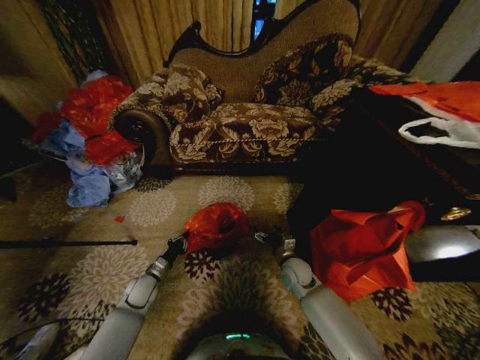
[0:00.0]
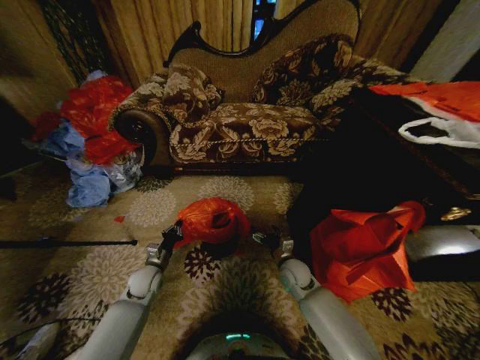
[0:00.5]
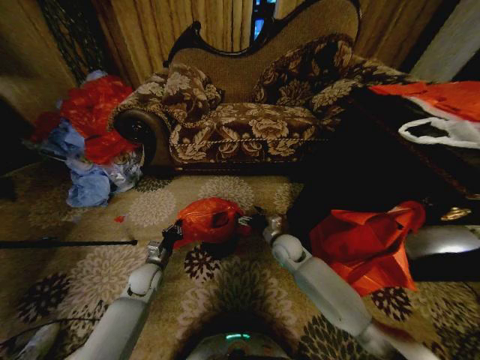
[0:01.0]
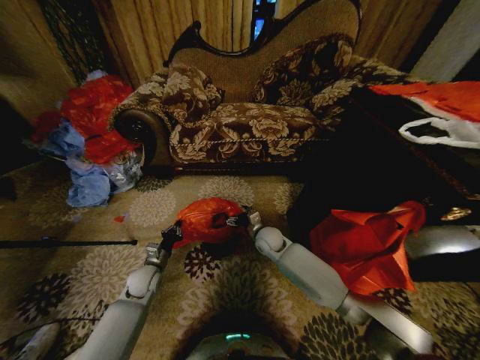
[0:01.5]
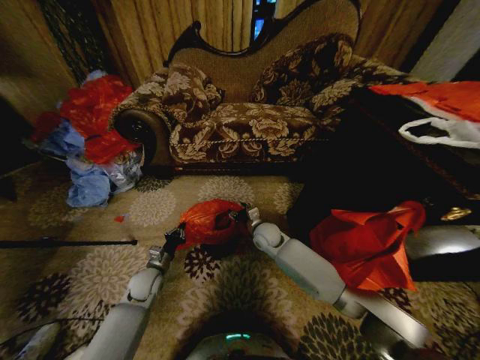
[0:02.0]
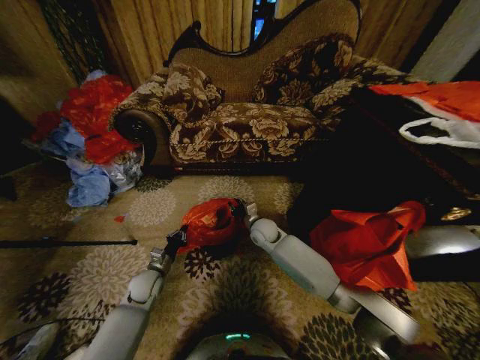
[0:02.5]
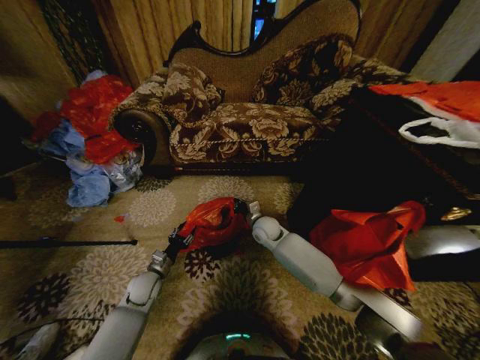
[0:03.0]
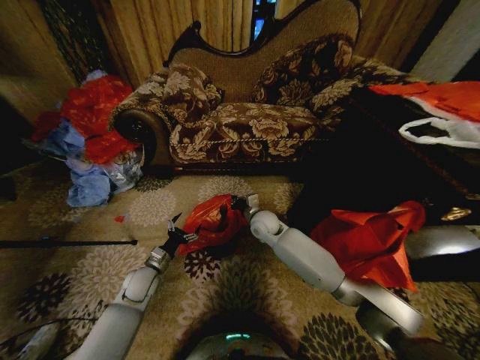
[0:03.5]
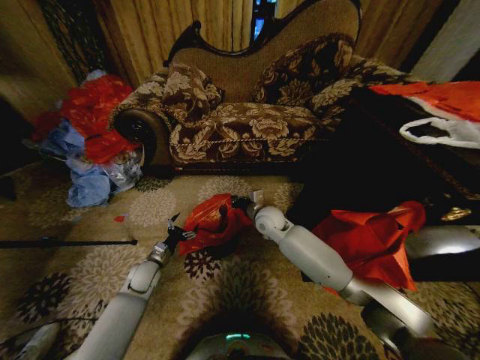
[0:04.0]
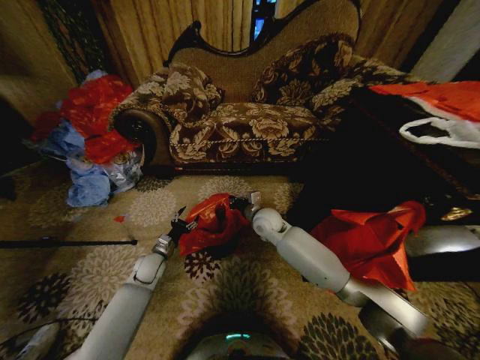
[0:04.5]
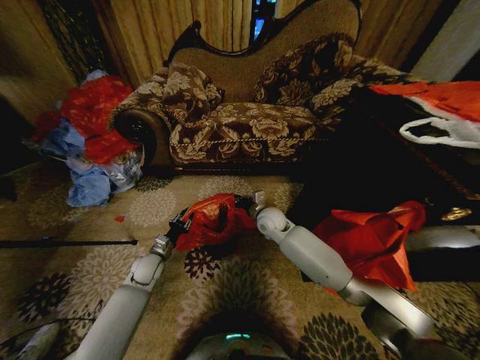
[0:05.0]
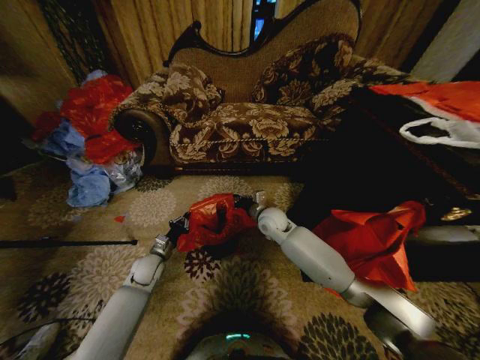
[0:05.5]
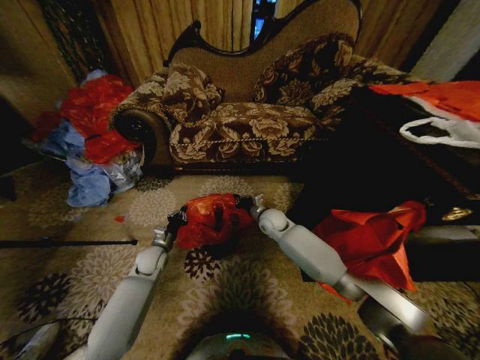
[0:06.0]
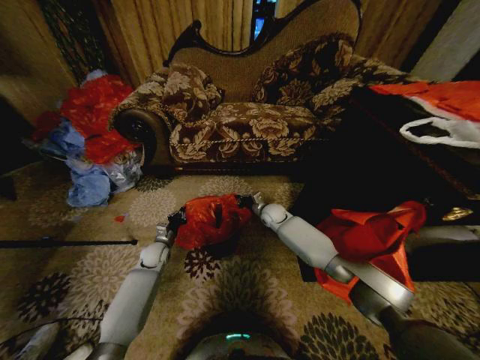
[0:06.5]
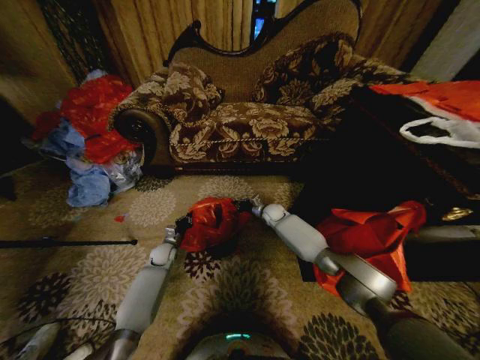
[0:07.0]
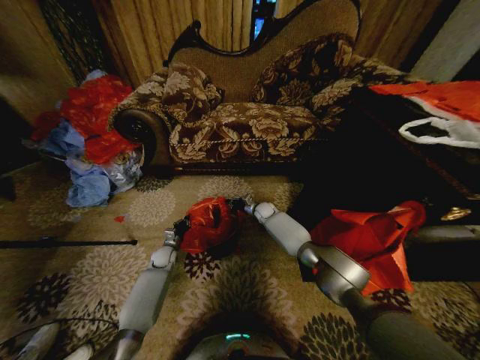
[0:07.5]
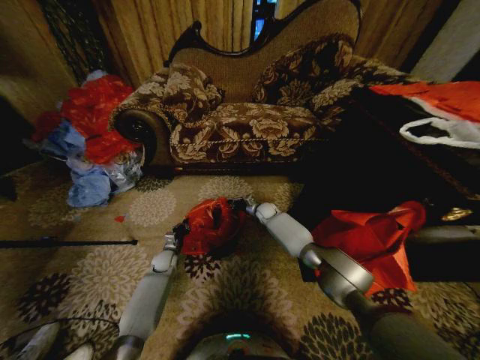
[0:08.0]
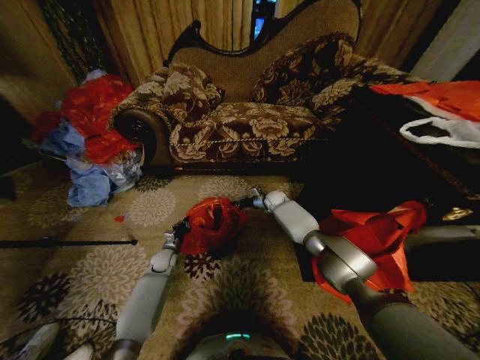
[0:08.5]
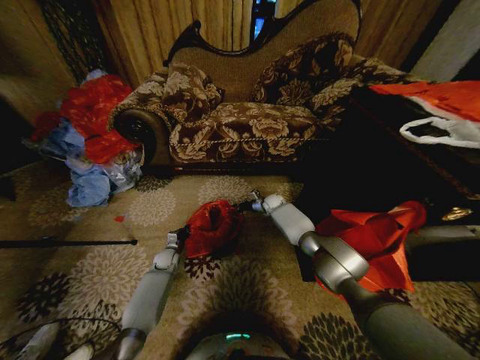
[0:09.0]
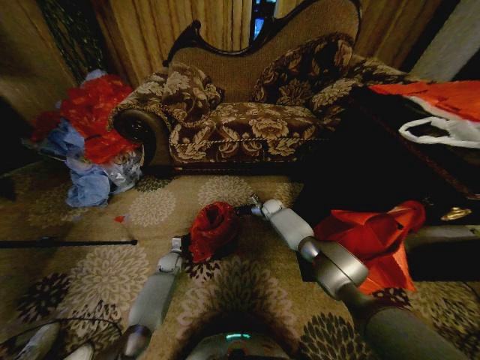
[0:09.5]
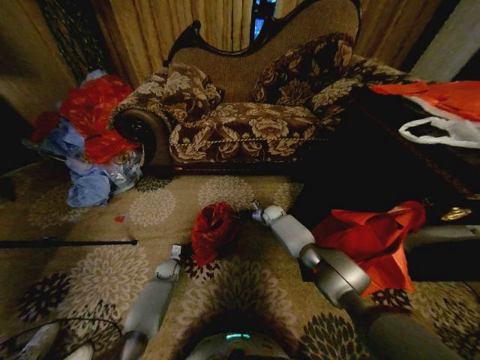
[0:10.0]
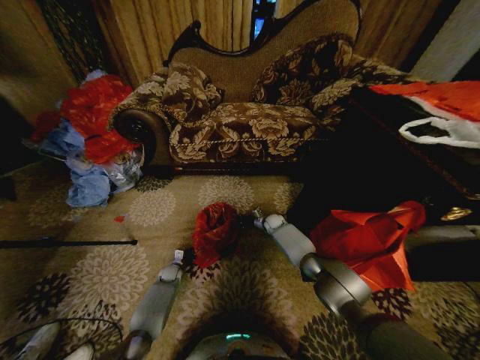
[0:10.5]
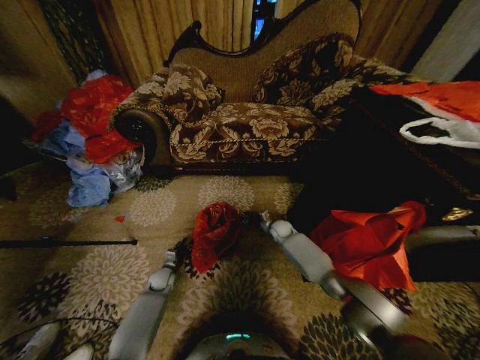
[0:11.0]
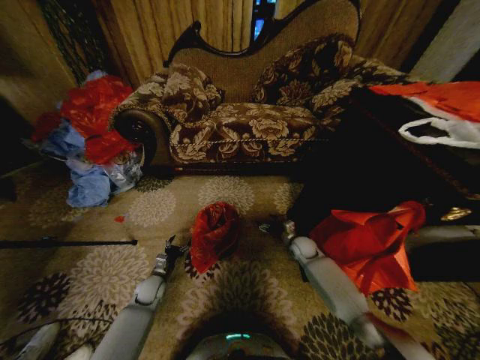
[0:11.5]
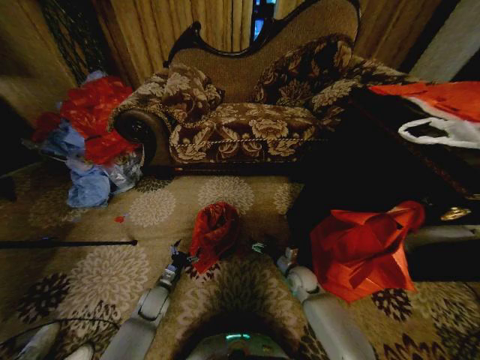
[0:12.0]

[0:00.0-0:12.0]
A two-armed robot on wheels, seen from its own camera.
Task of the whole recording: Place a garbage bag over the trash bin.
0:00.0 to 0:02.0: The right gripper moves to the left, forward and upward, about 15 cm.
0:02.0 to 0:04.0: The left gripper opens up, while the right gripper goes about 10 cm upward, and closes.
0:04.0 to 0:06.0: The right gripper ends up some 5 cm from where it was. Meanwhile the left gripper closes its fingers.
0:06.0 to 0:08.0: The left gripper heads downward, covering roughly 10 cm. The right gripper is displaced forward and downward by roughly 15 cm.
0:08.0 to 0:10.0: The left gripper shifts about 5 cm downward.
0:10.0 to 0:12.0: The right gripper travels backward by approximately 25 cm, and opens its fingers, while the left gripper goes approximately 15 cm backward and upward, and opens up.

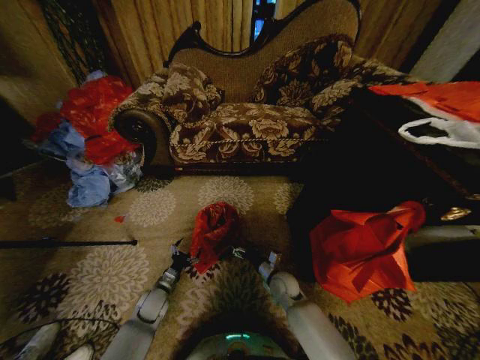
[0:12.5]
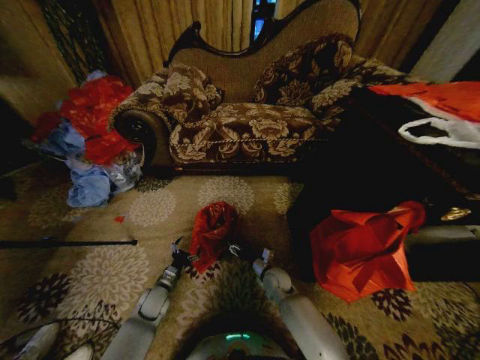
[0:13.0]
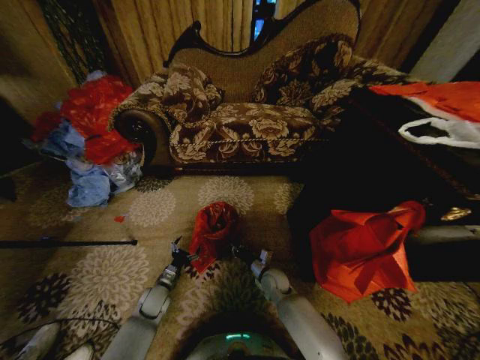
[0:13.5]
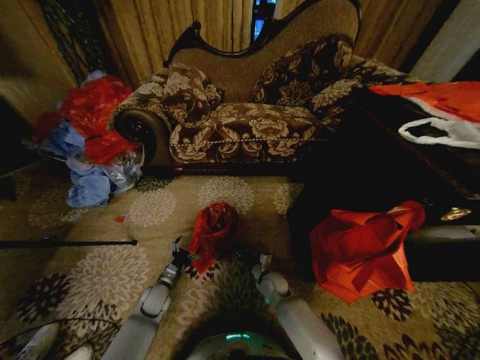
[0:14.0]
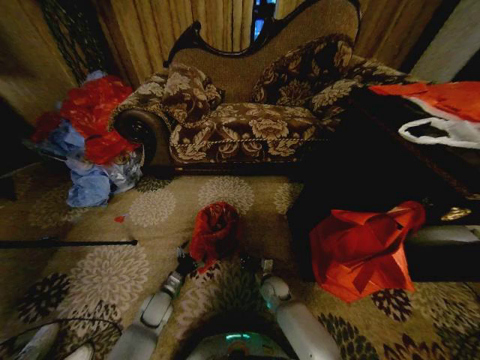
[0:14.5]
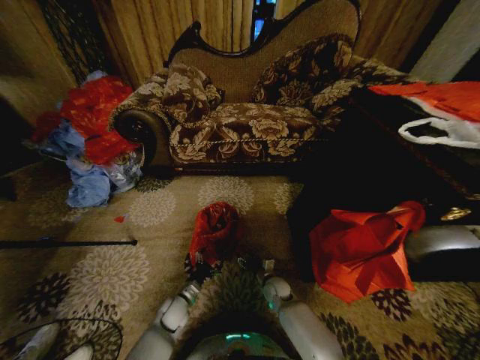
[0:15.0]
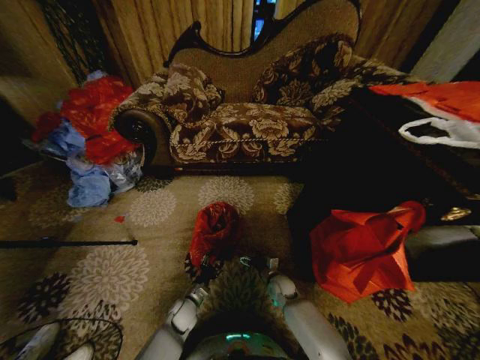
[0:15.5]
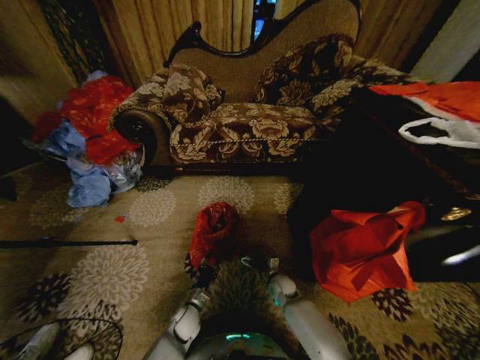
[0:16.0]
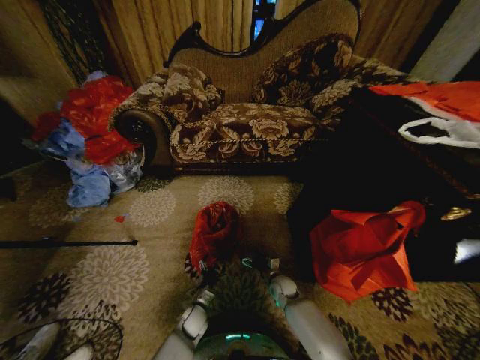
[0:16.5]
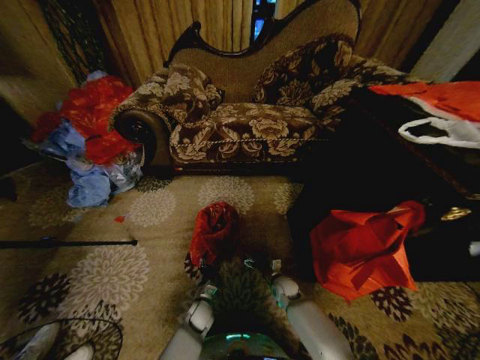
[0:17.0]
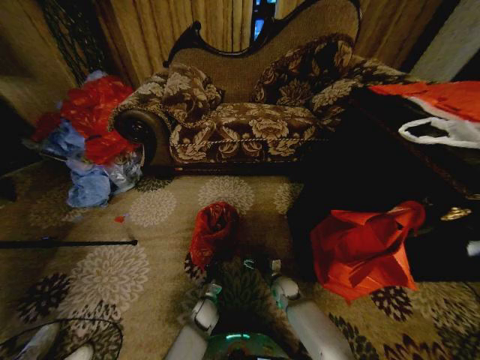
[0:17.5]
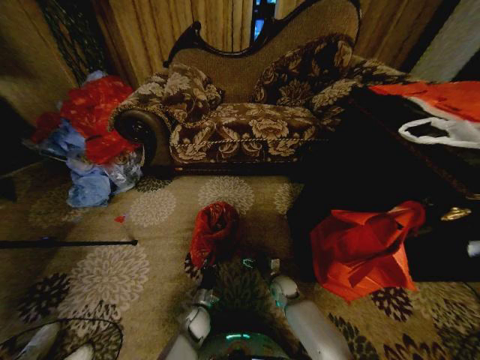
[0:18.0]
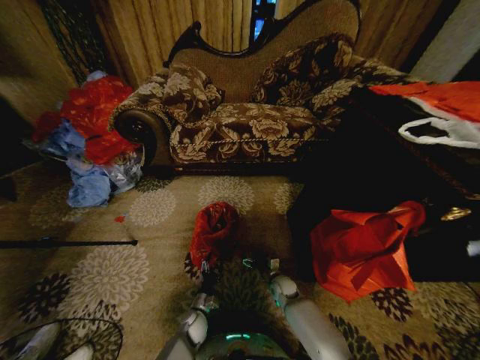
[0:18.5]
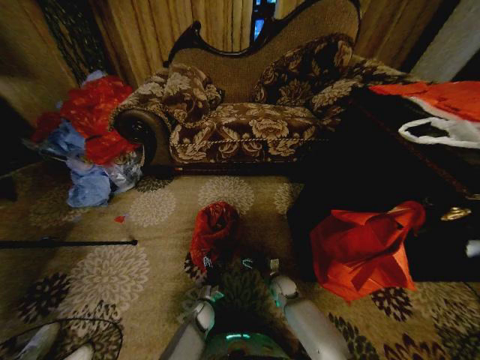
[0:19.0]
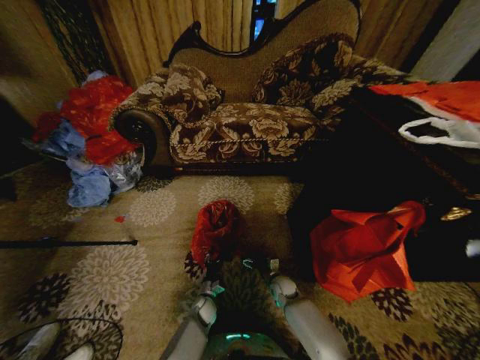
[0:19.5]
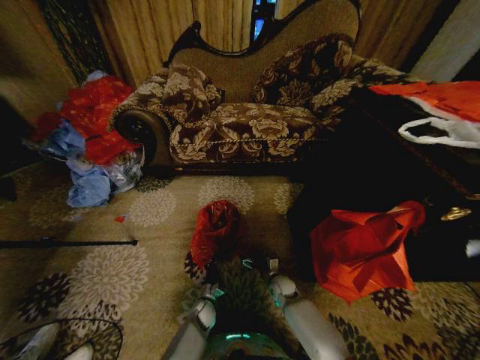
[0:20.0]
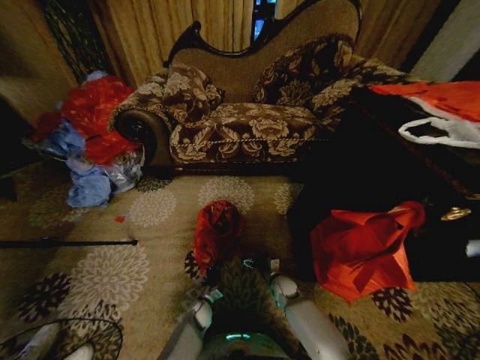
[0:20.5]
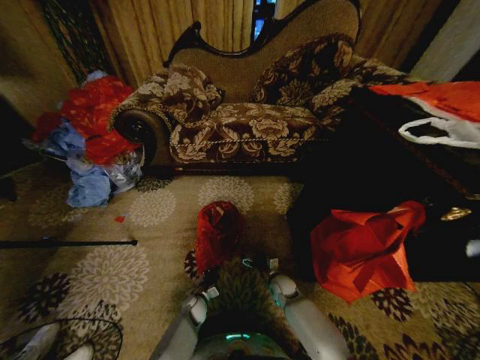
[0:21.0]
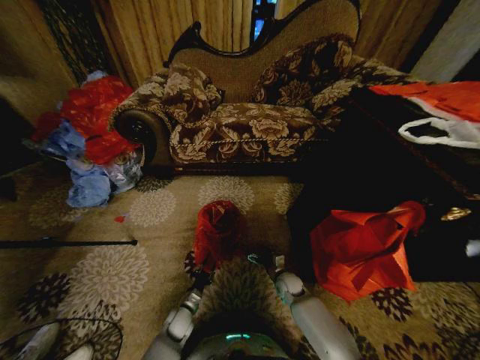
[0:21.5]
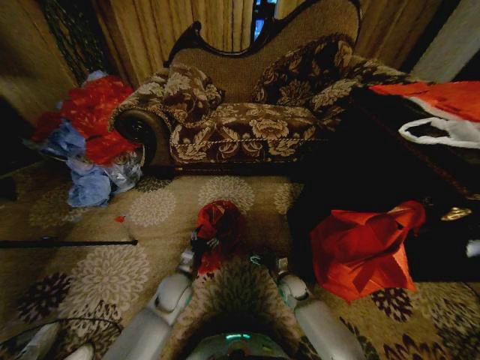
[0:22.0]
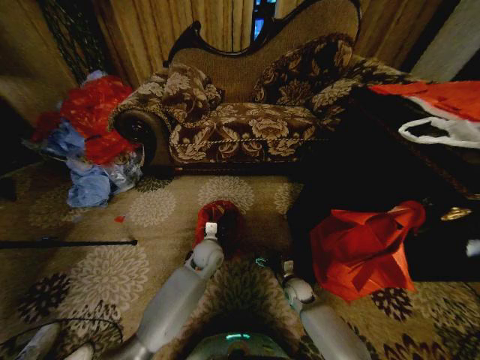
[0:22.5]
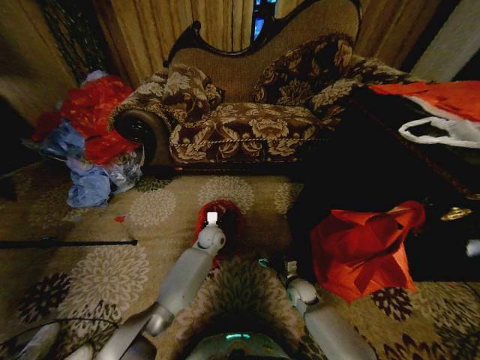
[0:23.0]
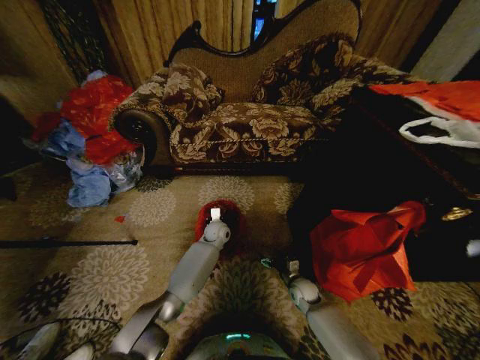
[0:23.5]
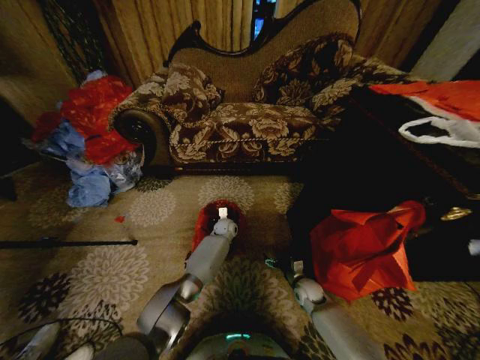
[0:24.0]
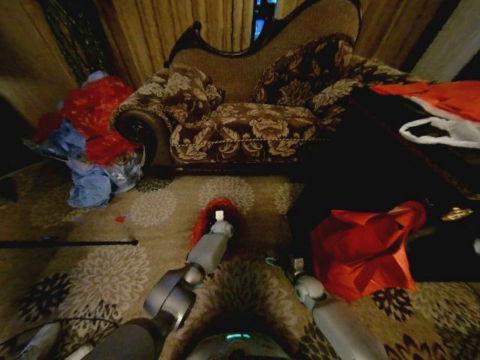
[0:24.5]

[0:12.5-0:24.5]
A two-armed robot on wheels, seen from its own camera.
Task of the whole recording: Place a garbage bag over the trash bin.
0:12.5 to 0:14.5: The right gripper moves downward, some 5 cm, and closes.
0:14.5 to 0:16.5: The right gripper opens; the left gripper goes approximately 15 cm to the right and downward, and closes, then reopens.
0:16.5 to 0:18.5: The left gripper closes, then reopens.
0:18.5 to 0:20.5: The left gripper closes up.
0:20.5 to 0:22.5: The left gripper travels upward by some 25 cm, and opens up; the right gripper moves about 5 cm.
0:22.5 to 0:24.5: The left gripper shifts roughly 20 cm forward and downward, and closes.

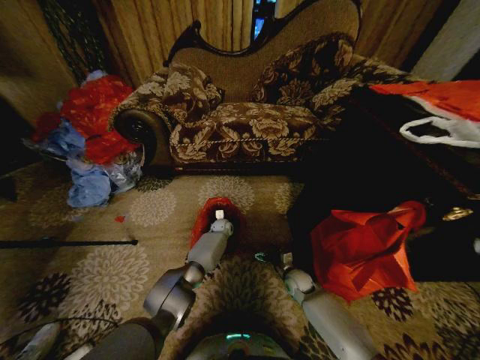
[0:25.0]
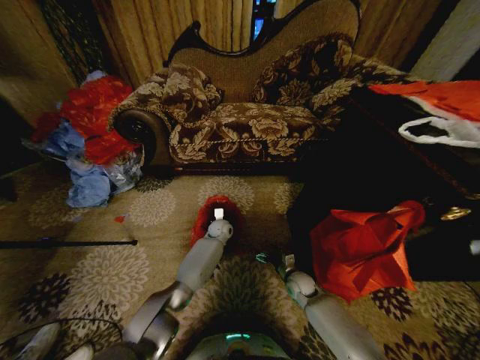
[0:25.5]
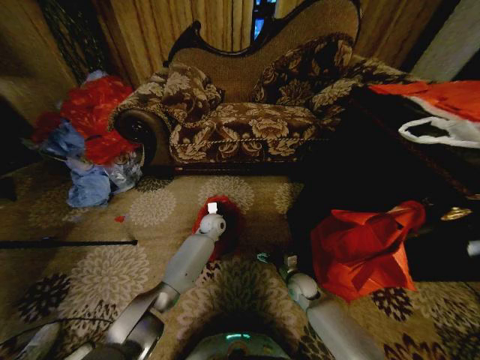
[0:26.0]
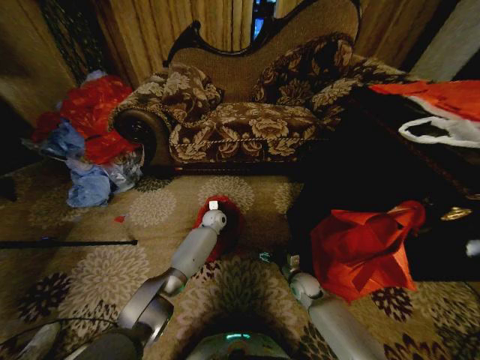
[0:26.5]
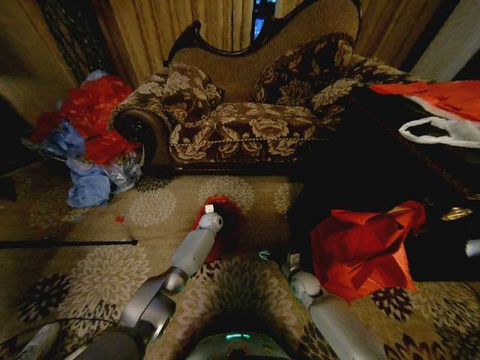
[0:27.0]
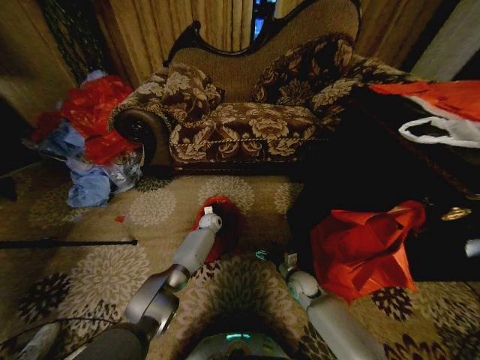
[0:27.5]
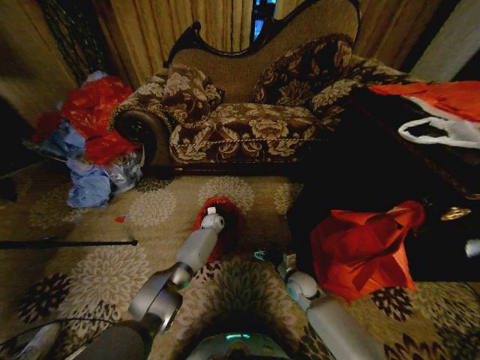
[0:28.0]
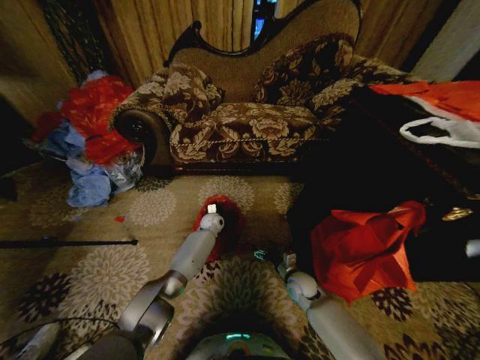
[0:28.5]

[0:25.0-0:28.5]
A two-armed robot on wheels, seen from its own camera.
Task of the whole recording: Place a garbage bag over the trash bin.
0:27.0 to 0:28.5: The grippers make only small movements.
